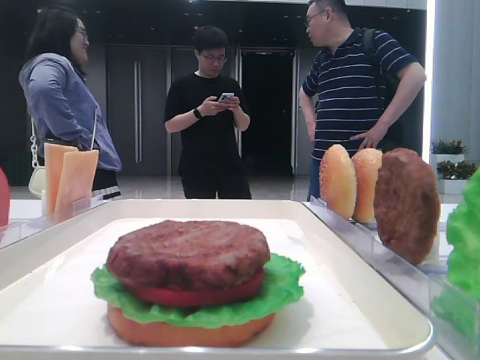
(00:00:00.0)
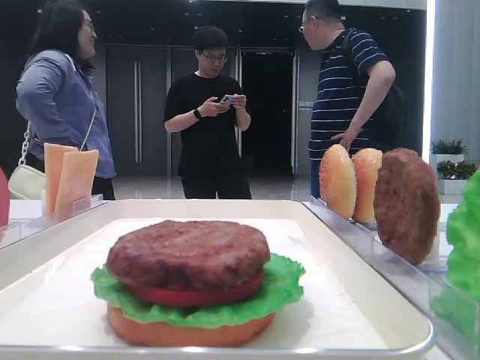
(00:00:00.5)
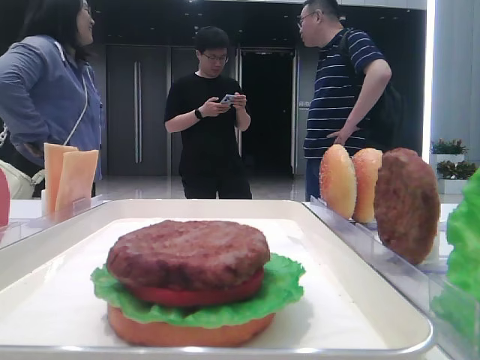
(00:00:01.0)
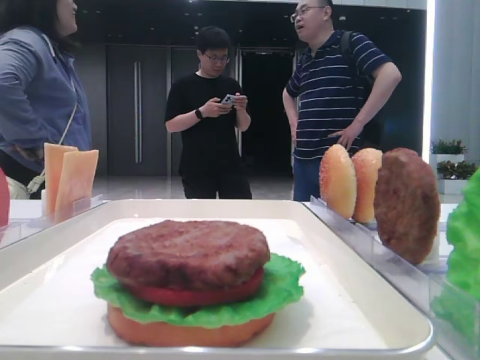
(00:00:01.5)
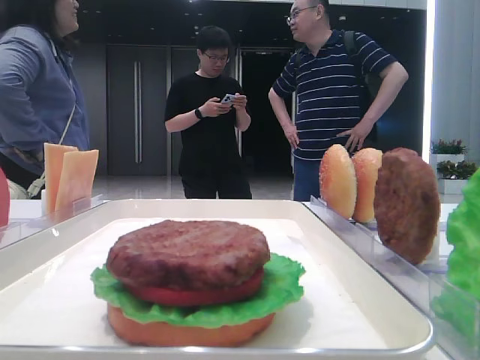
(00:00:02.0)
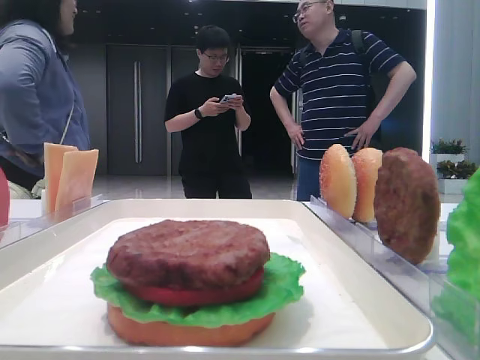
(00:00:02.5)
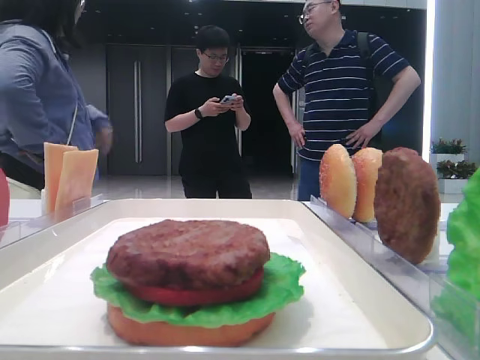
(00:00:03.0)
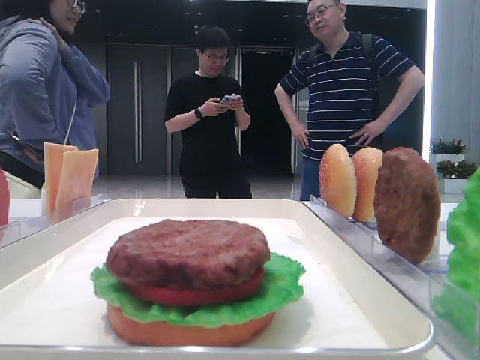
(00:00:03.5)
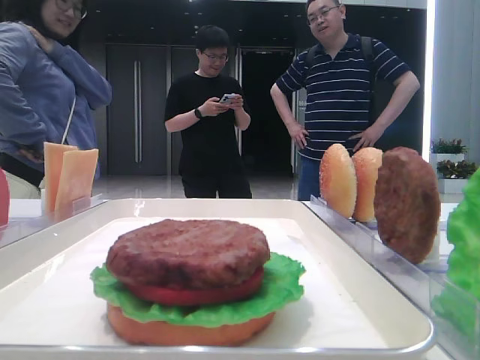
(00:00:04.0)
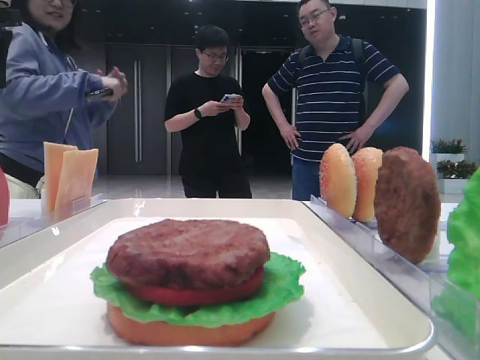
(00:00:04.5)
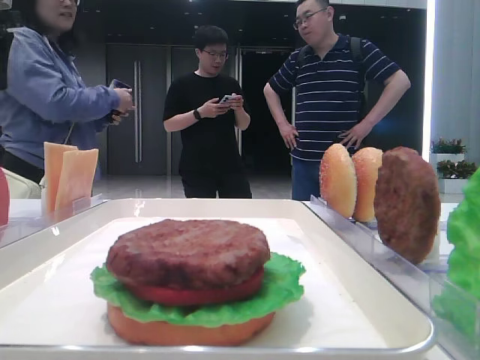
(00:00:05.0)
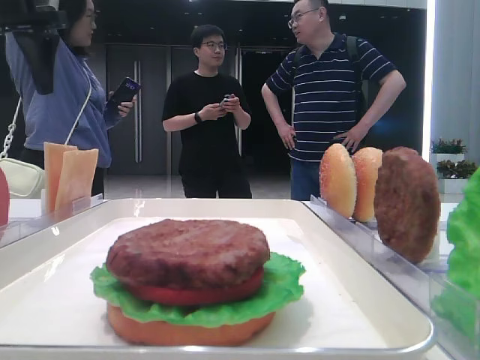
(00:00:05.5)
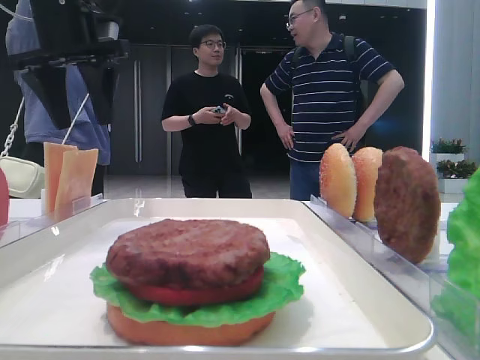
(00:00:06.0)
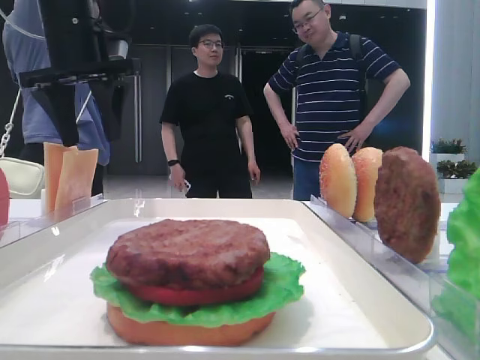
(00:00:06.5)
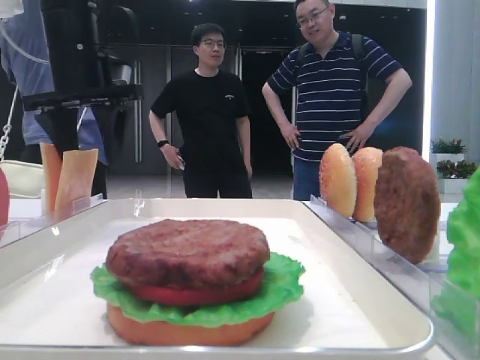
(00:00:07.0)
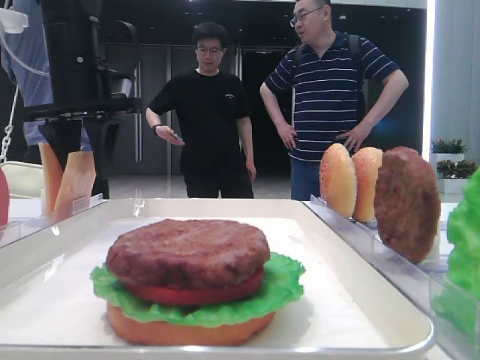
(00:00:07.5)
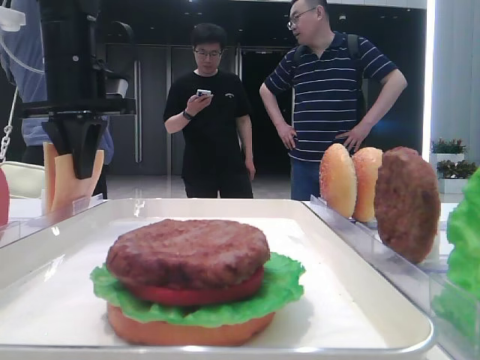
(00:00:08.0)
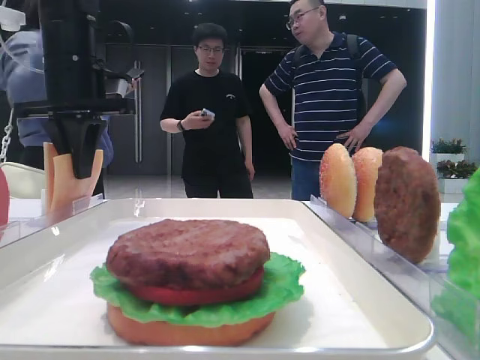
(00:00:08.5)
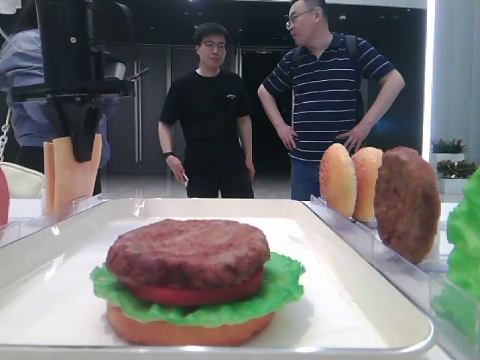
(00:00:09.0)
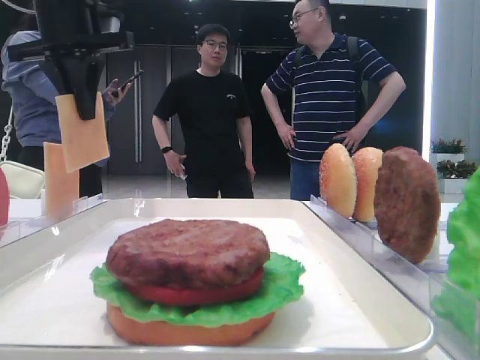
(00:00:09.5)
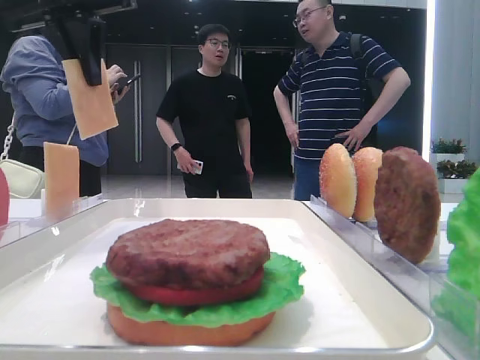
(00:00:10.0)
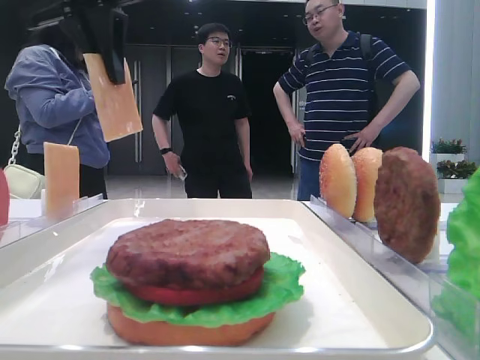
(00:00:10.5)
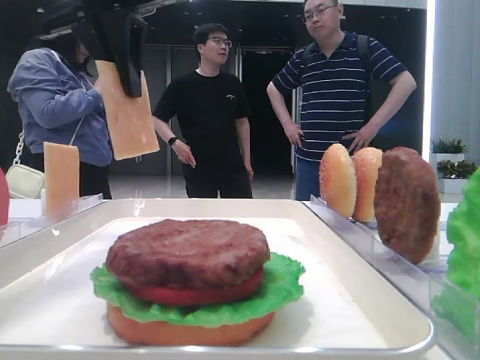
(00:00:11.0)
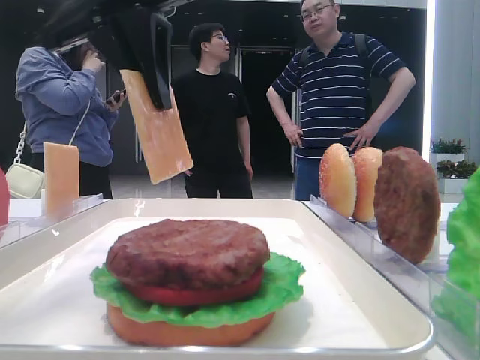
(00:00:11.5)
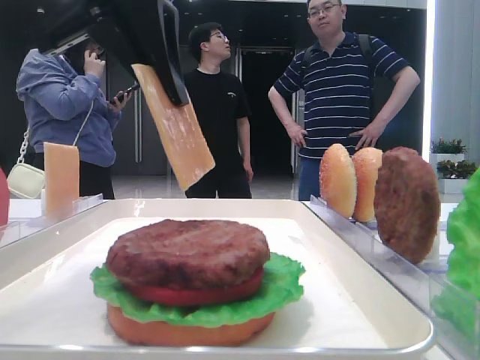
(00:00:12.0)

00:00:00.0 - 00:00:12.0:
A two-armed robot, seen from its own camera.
Step, 00:00:00.0 - 00:00:08.5: Pick up the cheese slice with the left hand.
00:00:02.0 - 00:00:04.0: The left gripper shifts about 30 cm forward.
00:00:04.0 - 00:00:06.0: The left gripper travels to the right, downward and forward by some 15 cm.
00:00:06.0 - 00:00:08.0: The left gripper shifts roughly 5 cm downward, and closes its fingers.
00:00:08.0 - 00:00:10.0: The left gripper moves upward, about 10 cm.
00:00:10.0 - 00:00:12.0: The left gripper moves backward and to the right, some 15 cm.

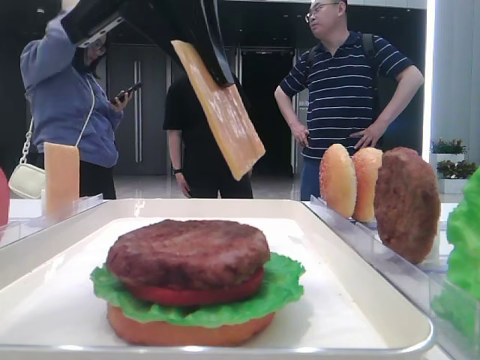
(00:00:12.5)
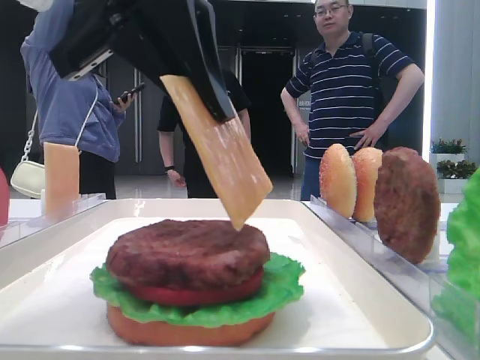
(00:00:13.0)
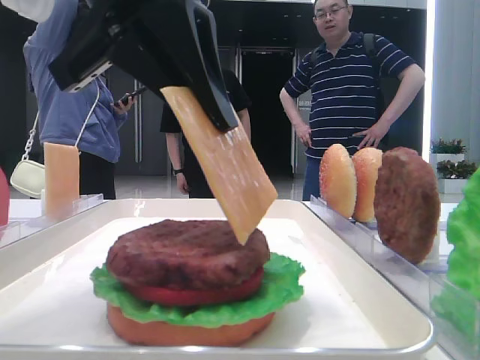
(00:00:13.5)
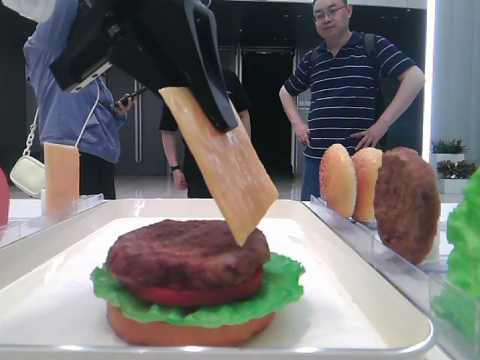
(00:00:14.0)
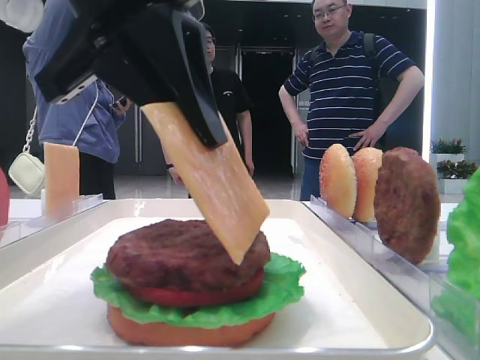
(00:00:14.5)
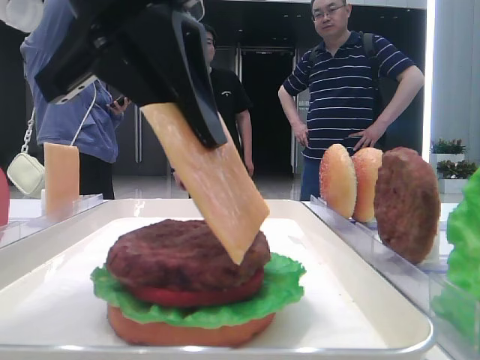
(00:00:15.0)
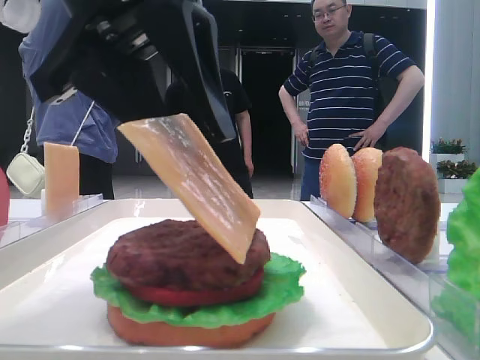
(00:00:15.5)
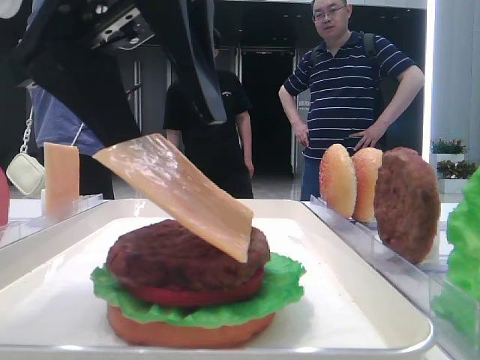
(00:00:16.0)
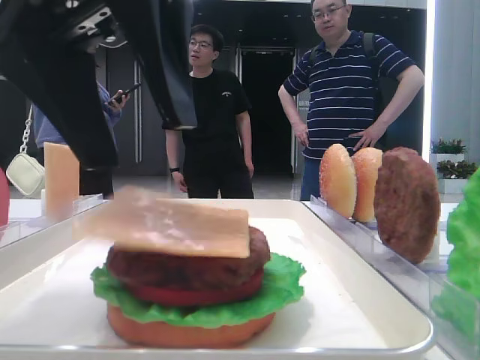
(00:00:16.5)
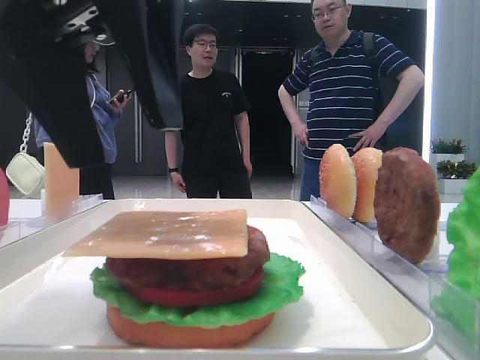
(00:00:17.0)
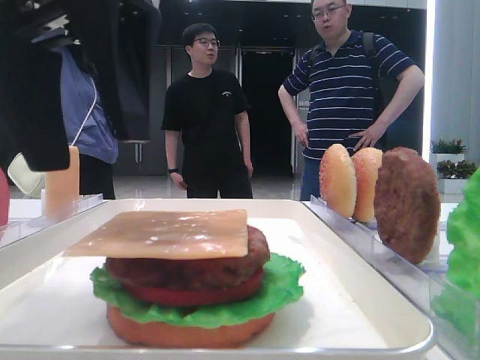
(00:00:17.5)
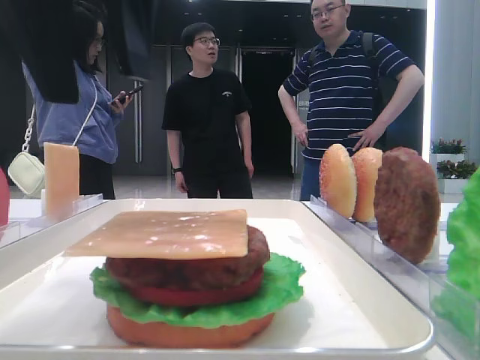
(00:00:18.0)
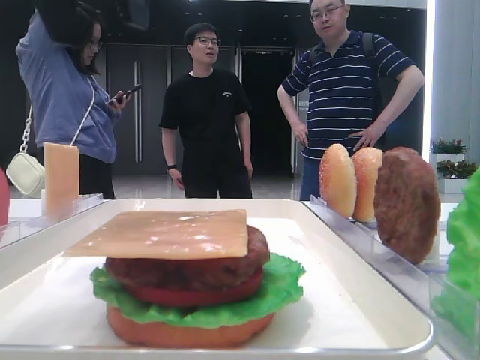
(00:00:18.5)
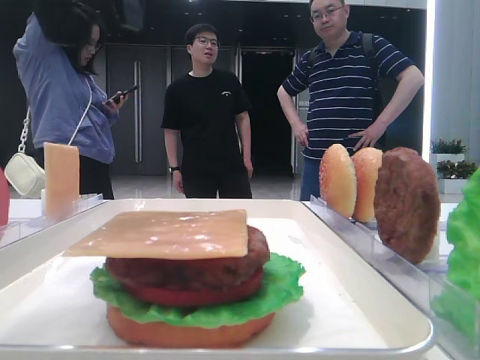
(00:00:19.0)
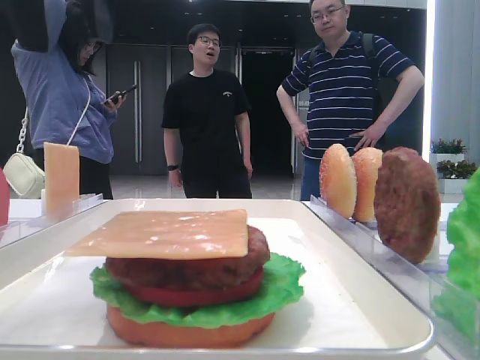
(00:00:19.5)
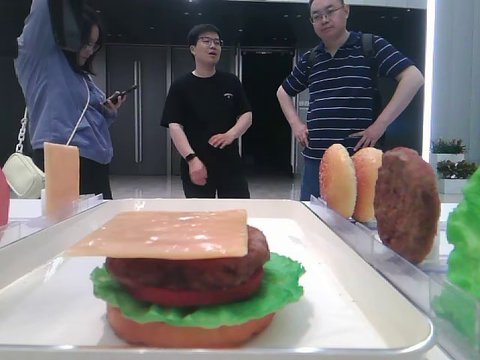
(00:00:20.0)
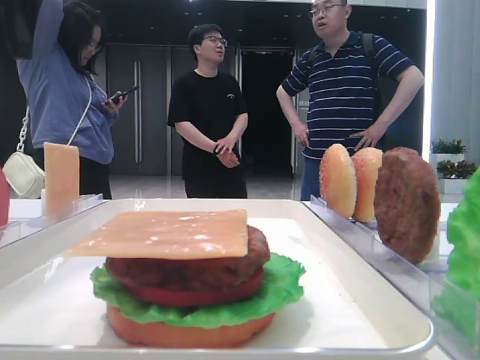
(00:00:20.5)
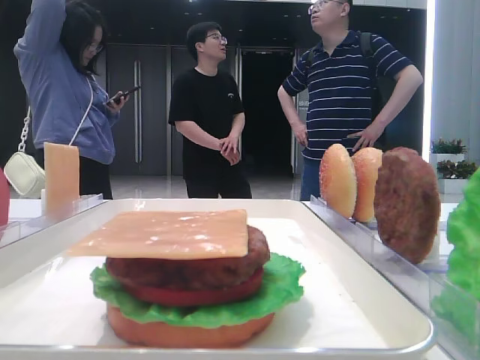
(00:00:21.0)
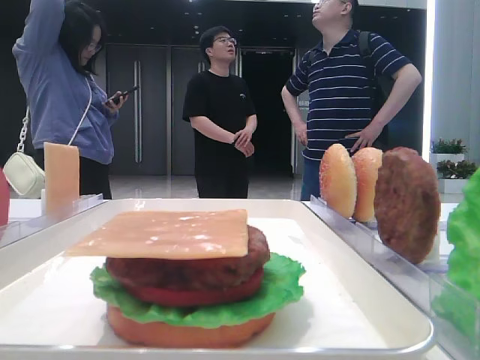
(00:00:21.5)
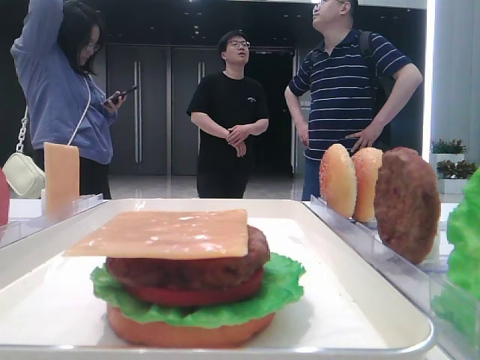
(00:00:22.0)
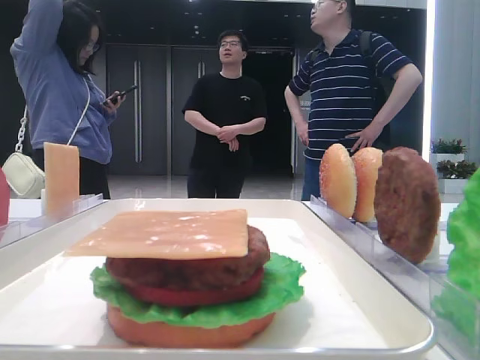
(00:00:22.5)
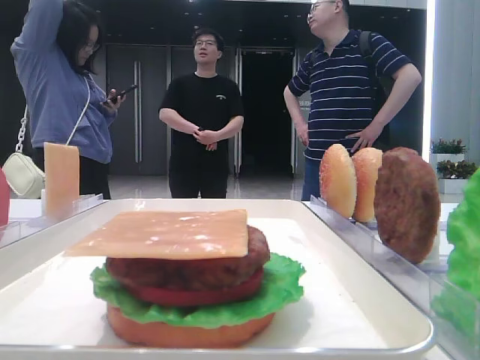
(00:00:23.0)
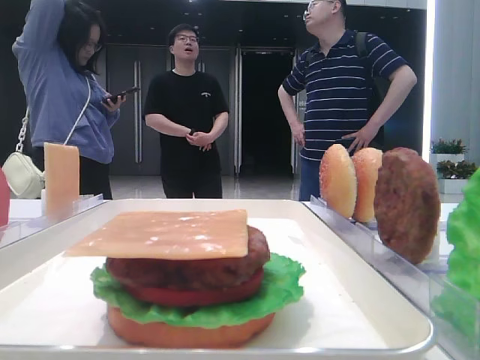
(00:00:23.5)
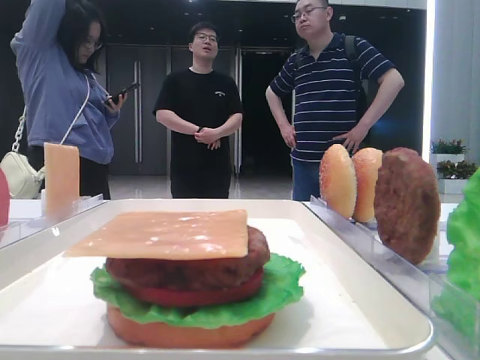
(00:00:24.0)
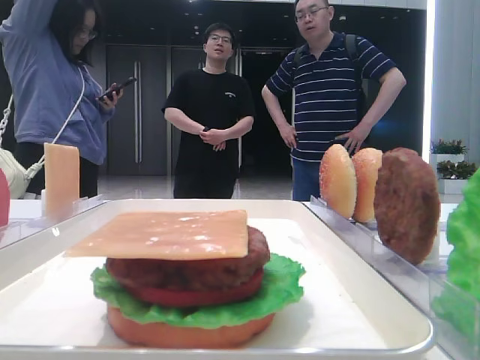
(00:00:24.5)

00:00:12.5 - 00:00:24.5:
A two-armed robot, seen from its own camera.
Step, 00:00:12.5 - 00:00:16.5: Place the cheese slice on the patty with the left hand.
00:00:12.5 - 00:00:14.5: The grippers move only a little.
00:00:14.5 - 00:00:16.5: The left gripper opens.
00:00:16.5 - 00:00:18.5: The left gripper goes approximately 10 cm upward.
00:00:18.5 - 00:00:20.5: The left gripper heads to the left and forward, covering some 10 cm.
00:00:20.5 - 00:00:22.5: The left gripper heads to the left, covering about 10 cm.
00:00:22.5 - 00:00:24.5: The left gripper shifts roughly 25 cm backward.

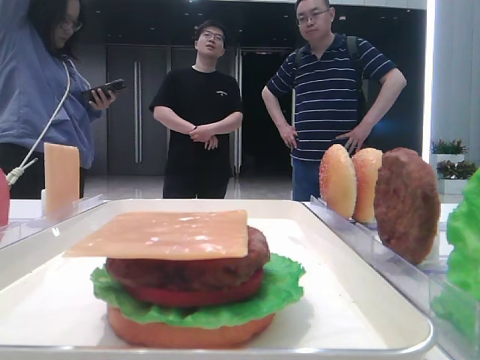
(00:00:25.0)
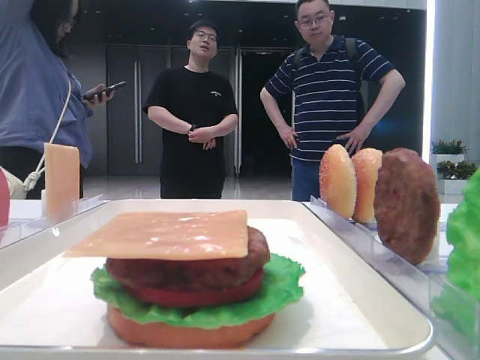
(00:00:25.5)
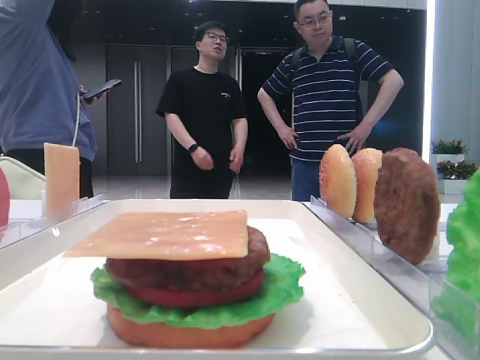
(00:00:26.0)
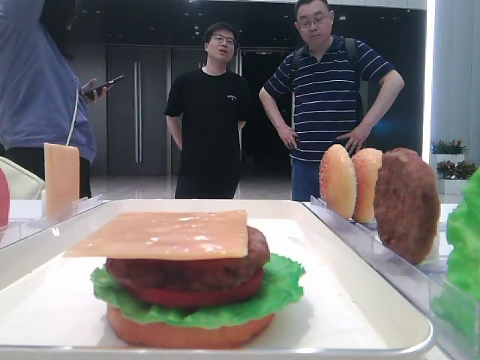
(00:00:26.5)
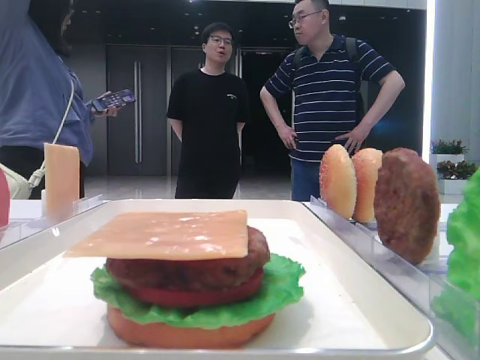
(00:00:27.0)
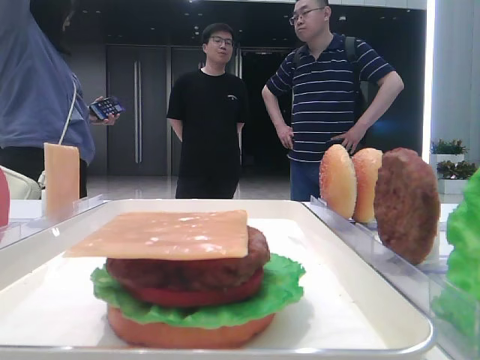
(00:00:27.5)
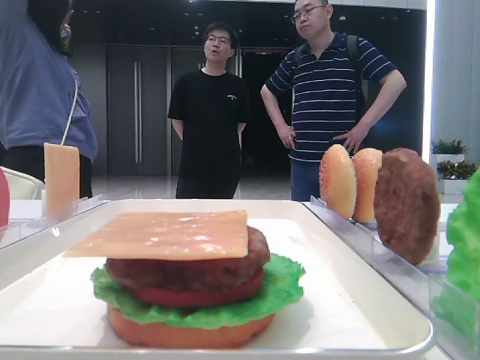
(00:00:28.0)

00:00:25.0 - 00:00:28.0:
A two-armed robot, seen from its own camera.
00:00:25.0 - 00:00:26.5: The grippers stay close to where they were, moving slightly.
00:00:26.5 - 00:00:28.0: The grippers make only small movements.
